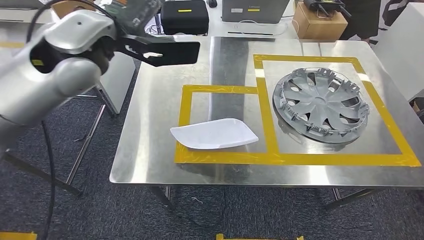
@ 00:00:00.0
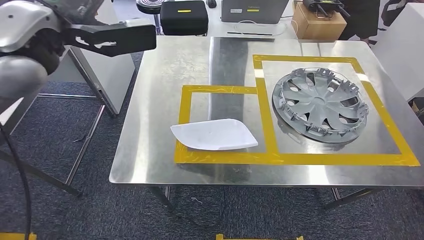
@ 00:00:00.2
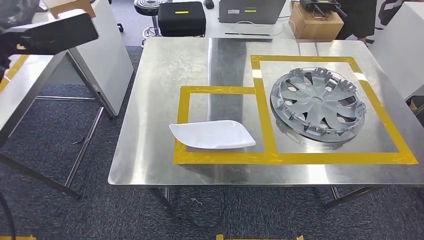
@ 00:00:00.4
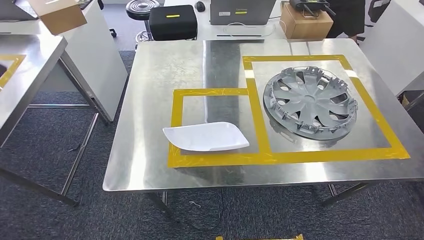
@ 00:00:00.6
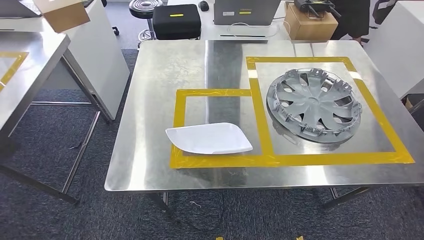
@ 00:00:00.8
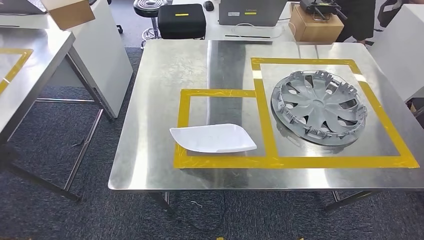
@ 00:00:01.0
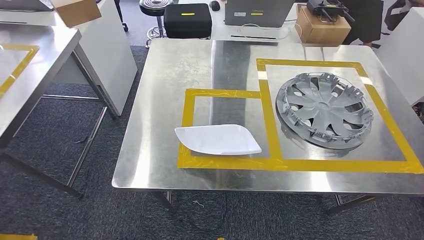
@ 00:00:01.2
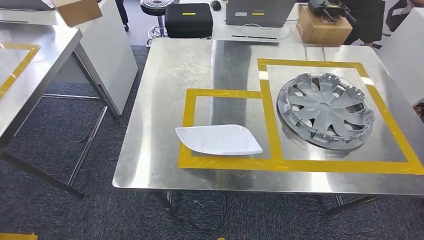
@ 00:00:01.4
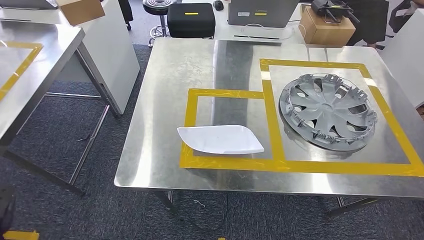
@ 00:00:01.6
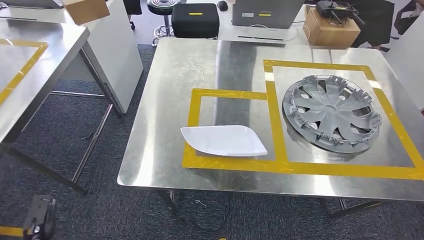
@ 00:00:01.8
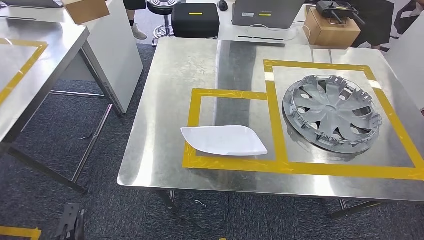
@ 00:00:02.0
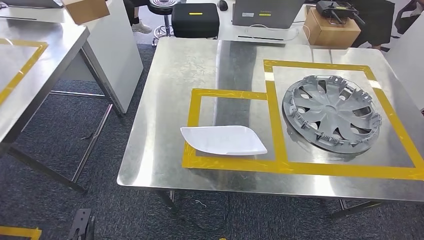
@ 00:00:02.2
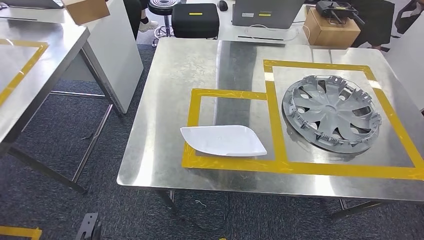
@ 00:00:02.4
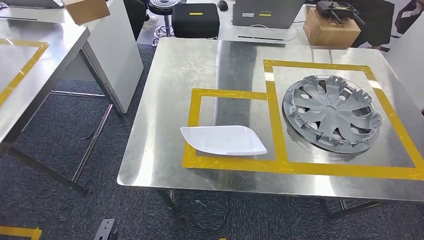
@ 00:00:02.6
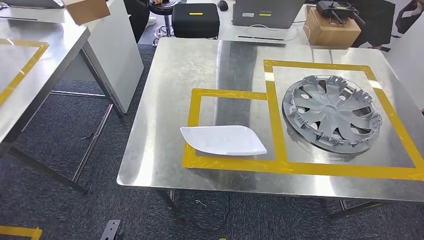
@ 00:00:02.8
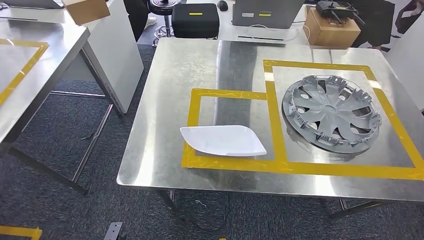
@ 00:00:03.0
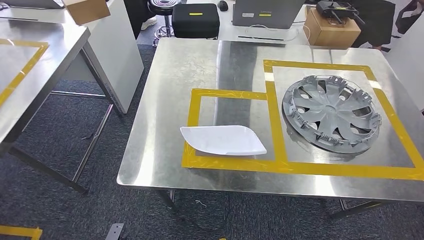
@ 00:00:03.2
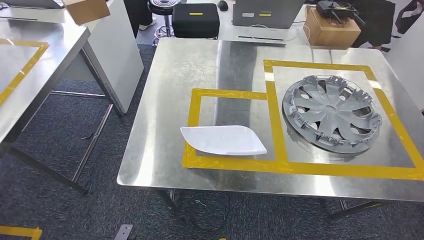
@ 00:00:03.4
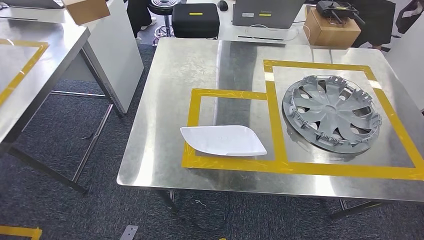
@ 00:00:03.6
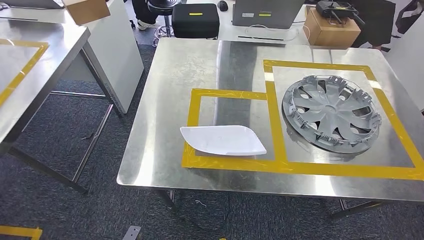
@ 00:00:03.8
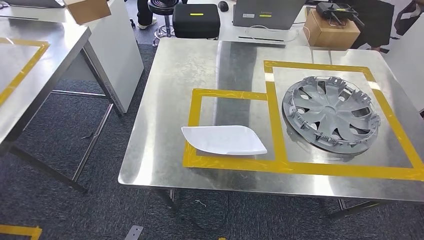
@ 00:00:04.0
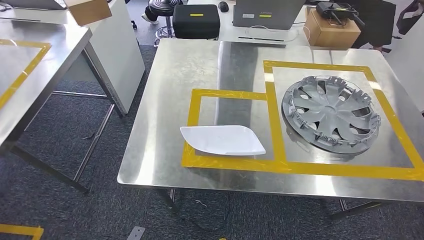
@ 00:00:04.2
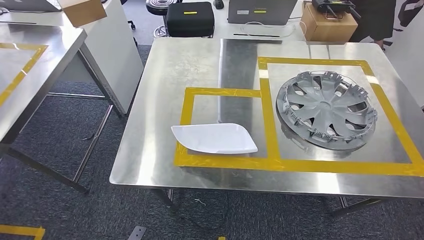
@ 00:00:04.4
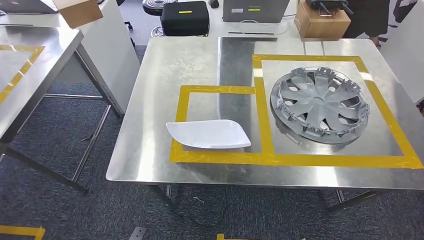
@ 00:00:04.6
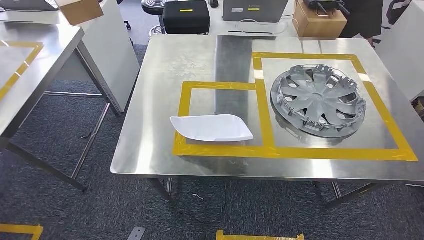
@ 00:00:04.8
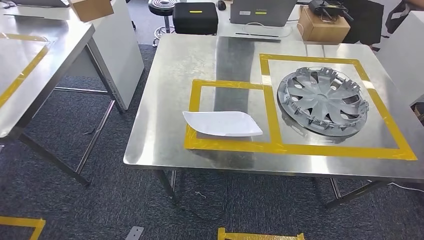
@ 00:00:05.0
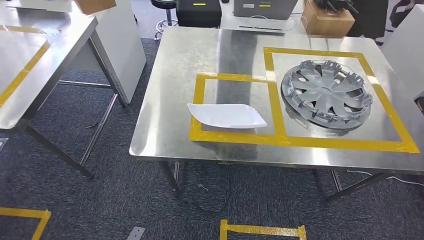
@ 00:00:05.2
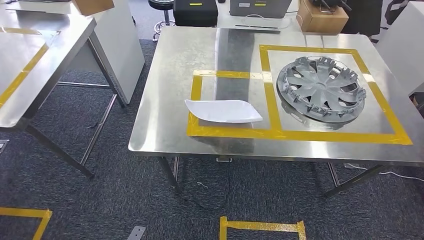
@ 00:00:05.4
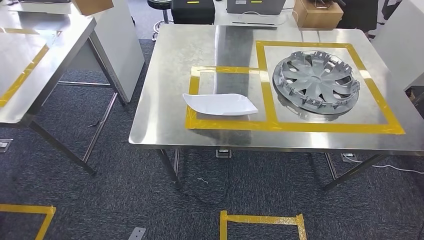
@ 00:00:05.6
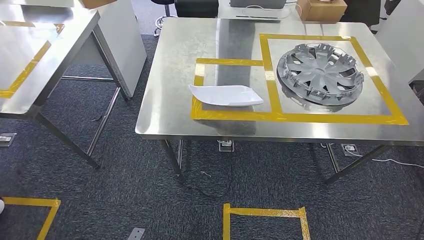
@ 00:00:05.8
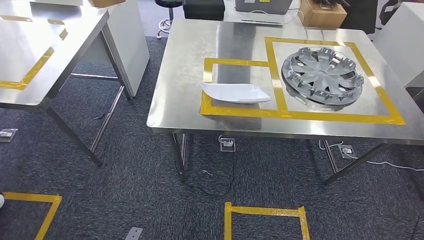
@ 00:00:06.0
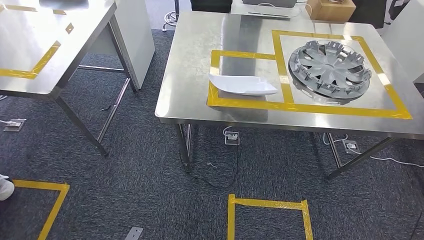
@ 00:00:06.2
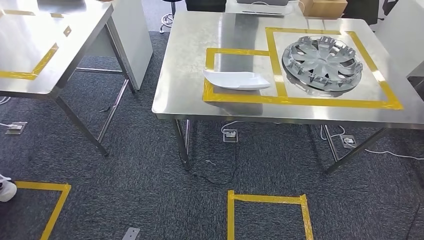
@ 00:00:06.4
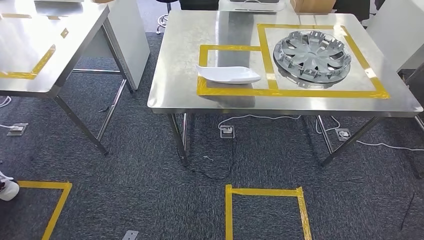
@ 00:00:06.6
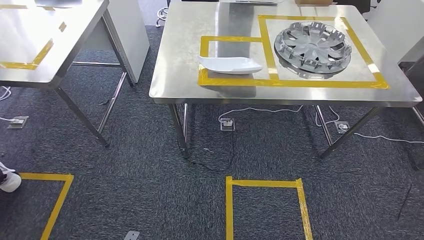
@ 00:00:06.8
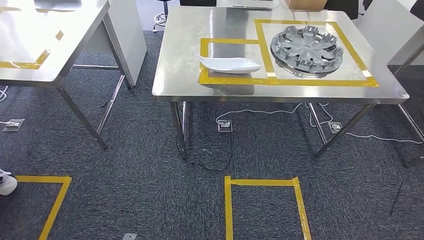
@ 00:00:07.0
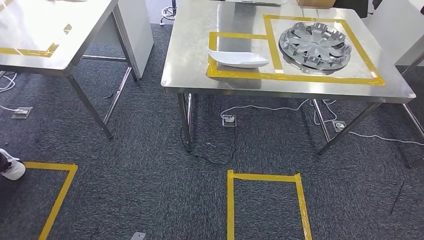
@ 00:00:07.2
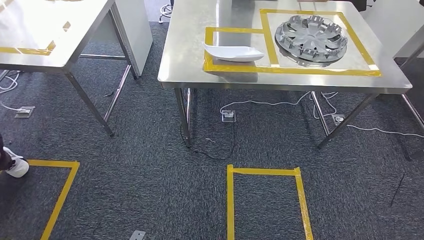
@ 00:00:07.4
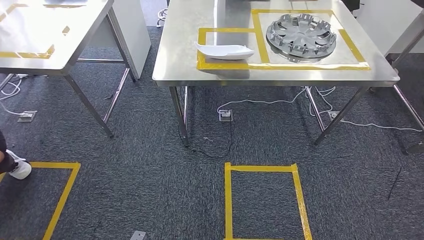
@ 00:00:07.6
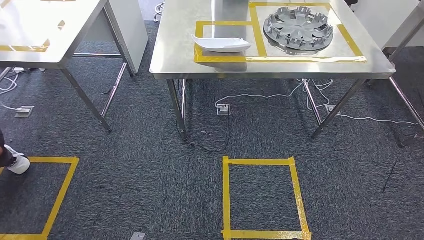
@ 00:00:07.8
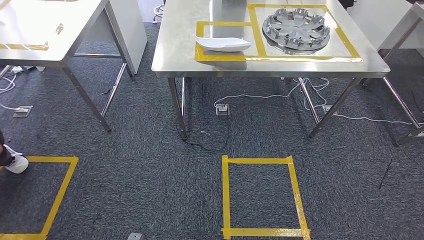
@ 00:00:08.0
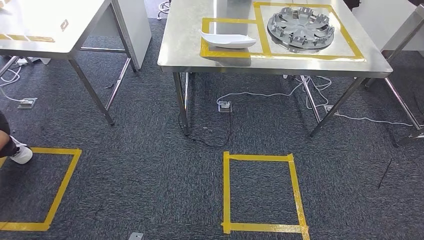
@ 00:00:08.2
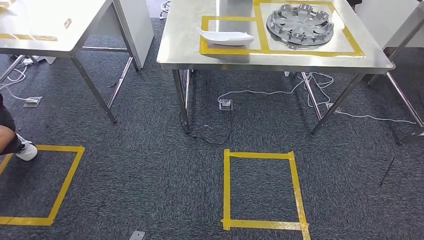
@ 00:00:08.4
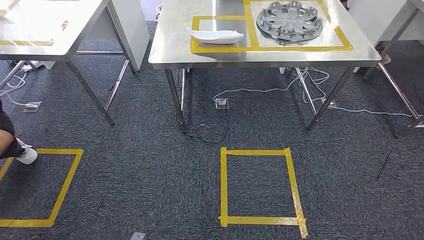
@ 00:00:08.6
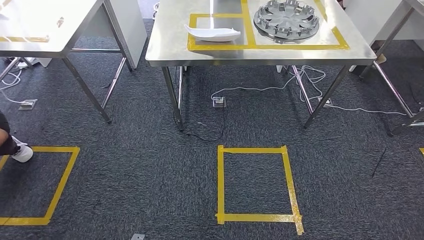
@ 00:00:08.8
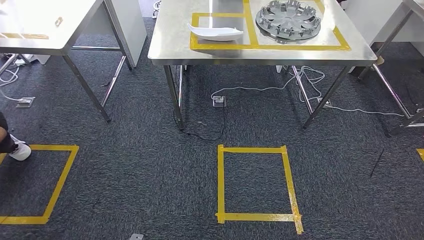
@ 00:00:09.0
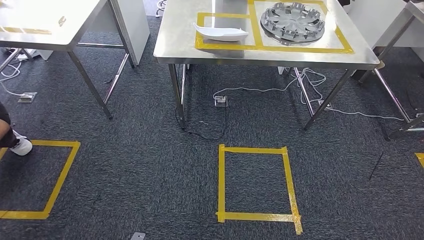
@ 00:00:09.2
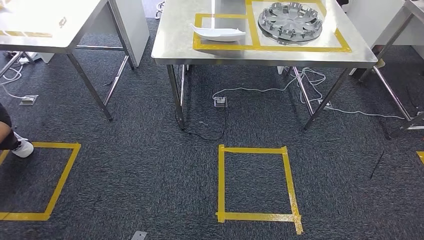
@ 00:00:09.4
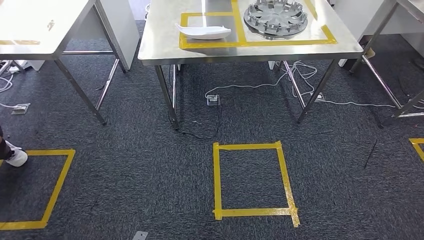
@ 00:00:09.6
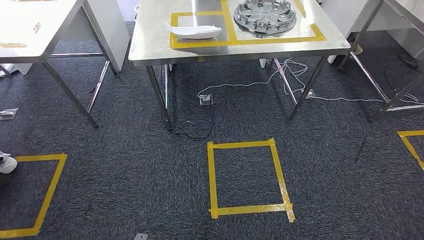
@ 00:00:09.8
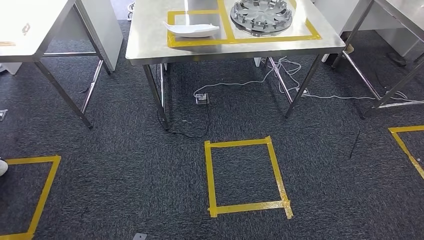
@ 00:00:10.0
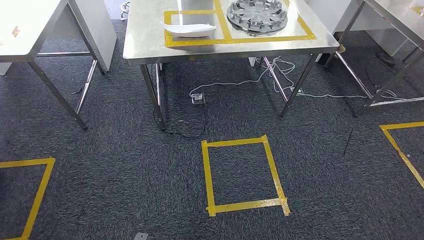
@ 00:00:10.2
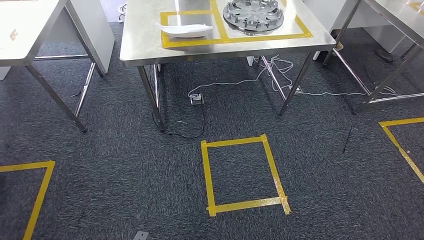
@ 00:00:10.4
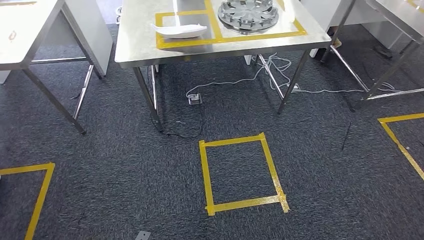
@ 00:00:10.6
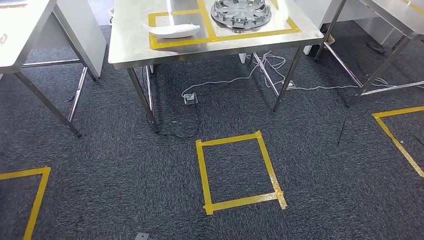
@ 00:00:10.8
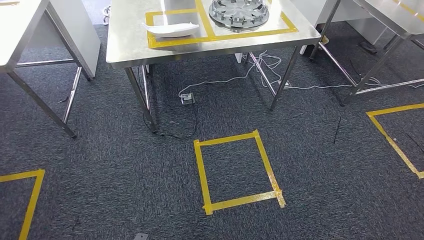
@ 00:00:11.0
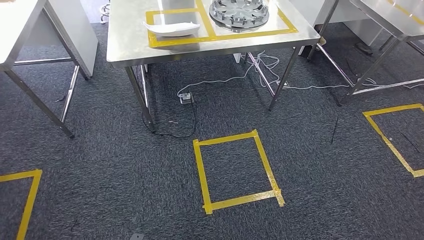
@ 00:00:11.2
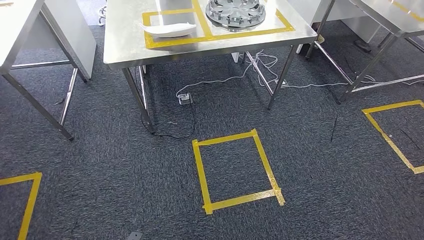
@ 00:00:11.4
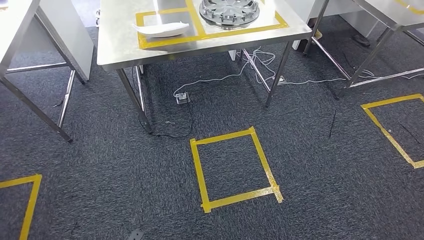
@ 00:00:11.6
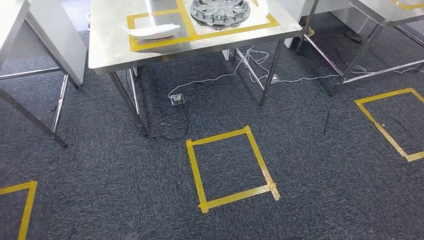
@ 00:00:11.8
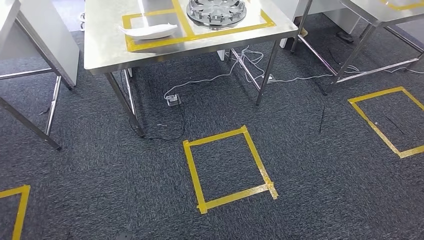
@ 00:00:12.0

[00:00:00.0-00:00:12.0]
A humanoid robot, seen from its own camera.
00:00:01.6 to 00:00:03.0: The left hand is displaced to the right and downward by roughly 30 cm.

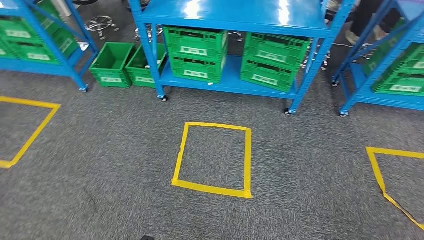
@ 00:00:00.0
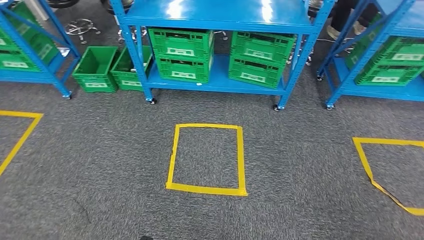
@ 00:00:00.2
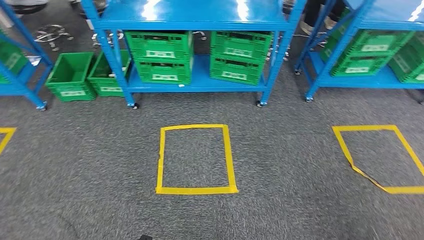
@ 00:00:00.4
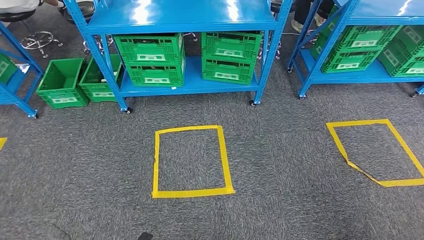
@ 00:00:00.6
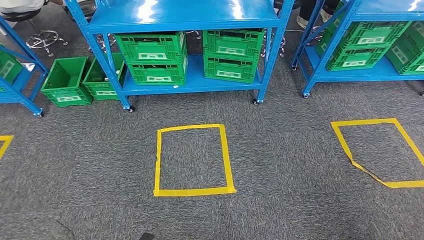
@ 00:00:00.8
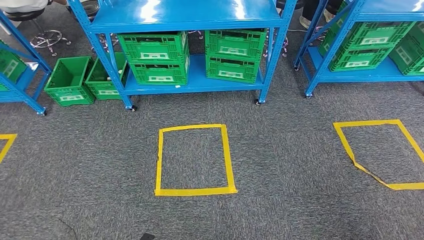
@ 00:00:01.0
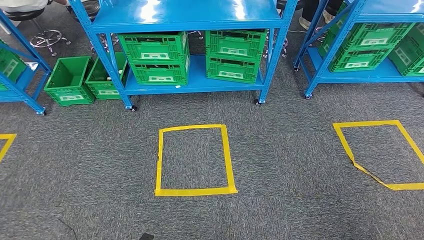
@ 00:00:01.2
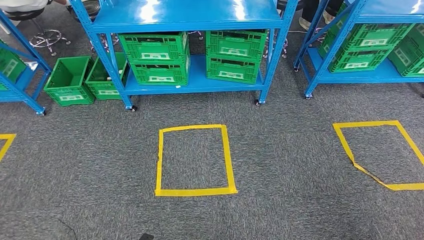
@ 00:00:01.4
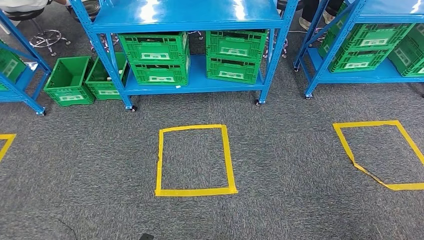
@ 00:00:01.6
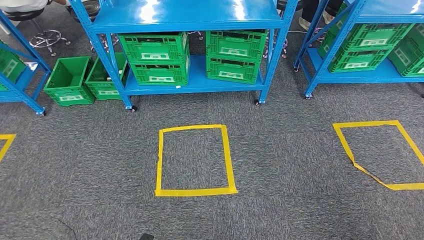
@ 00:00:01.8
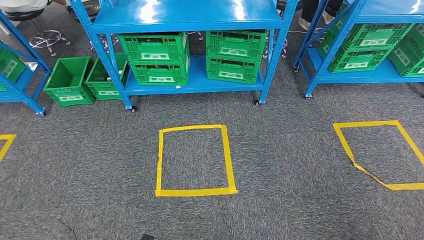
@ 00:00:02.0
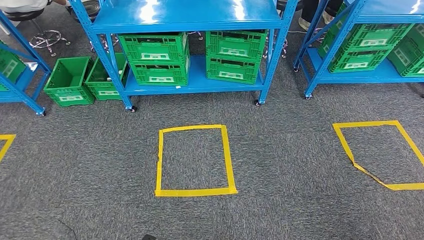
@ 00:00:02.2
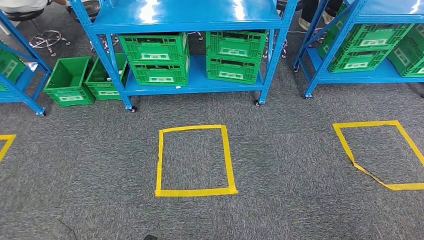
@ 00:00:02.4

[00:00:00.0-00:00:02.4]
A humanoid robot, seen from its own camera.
Step, 00:00:00.0 to 00:00:02.4: Return to the initial position at the workbench.
00:00:01.2 to 00:00:02.4: Neither hand changes place.
